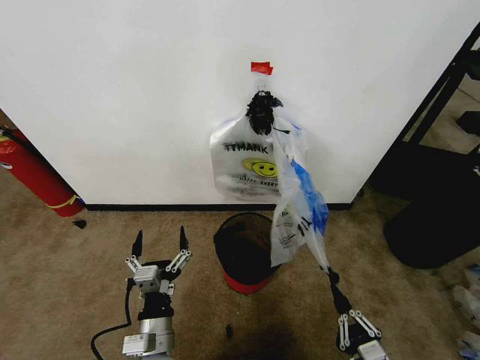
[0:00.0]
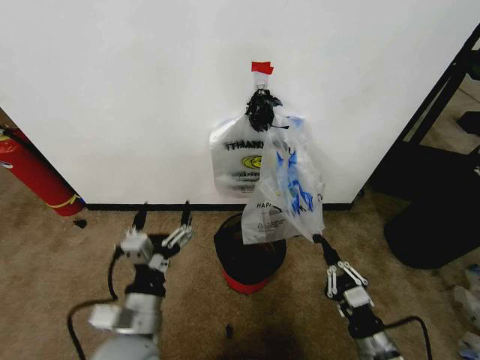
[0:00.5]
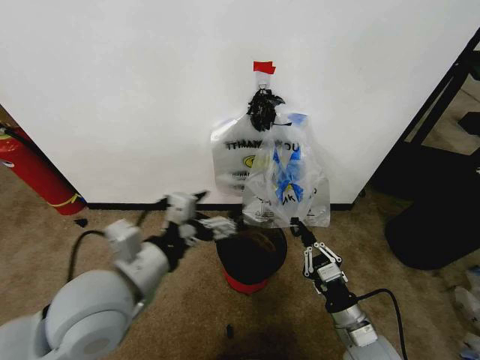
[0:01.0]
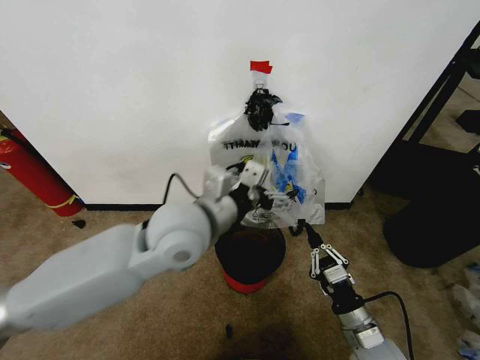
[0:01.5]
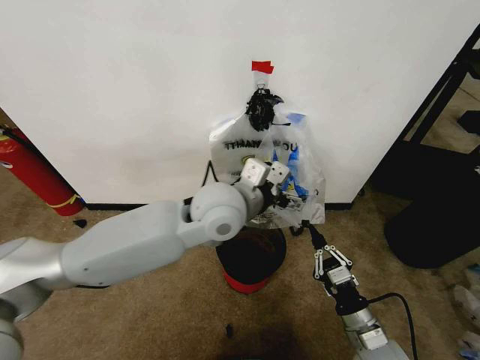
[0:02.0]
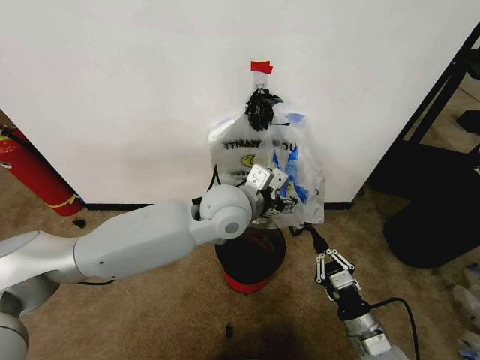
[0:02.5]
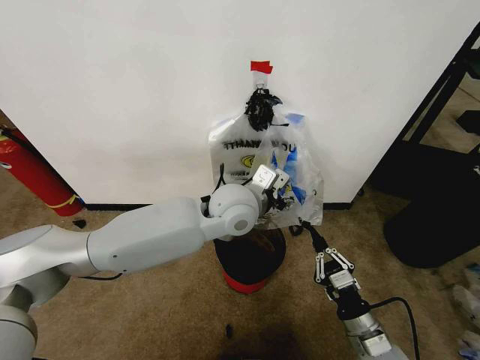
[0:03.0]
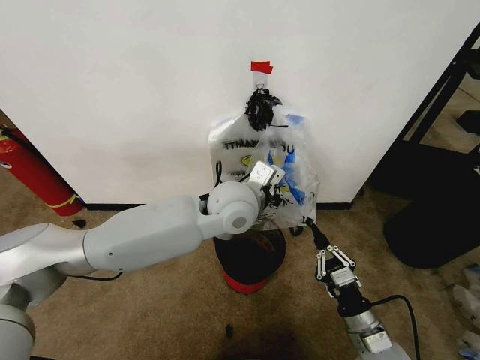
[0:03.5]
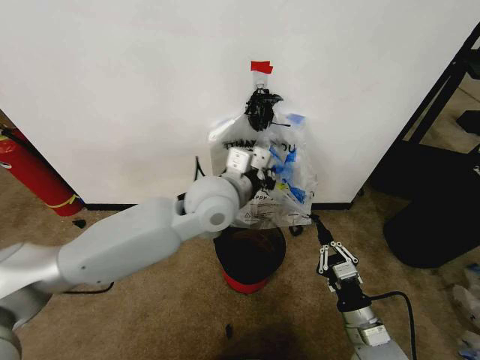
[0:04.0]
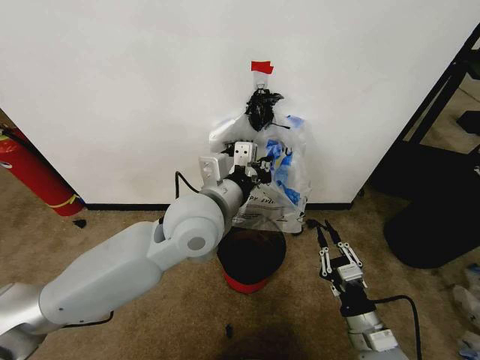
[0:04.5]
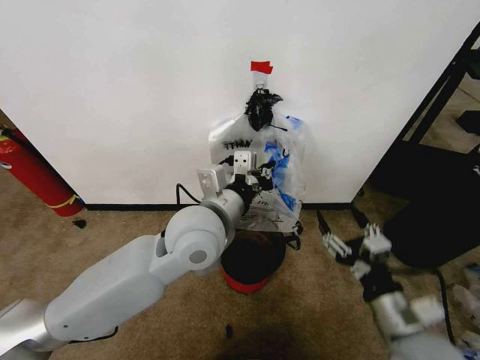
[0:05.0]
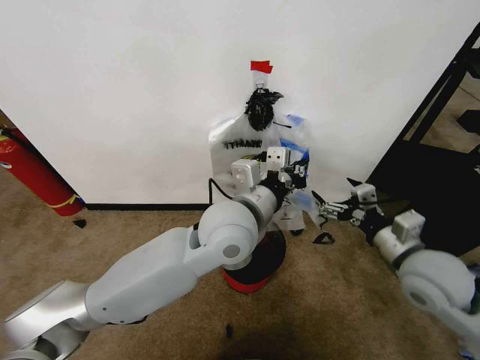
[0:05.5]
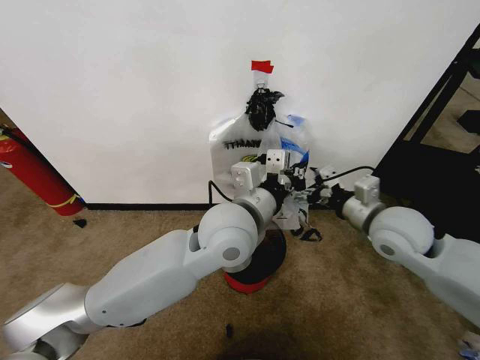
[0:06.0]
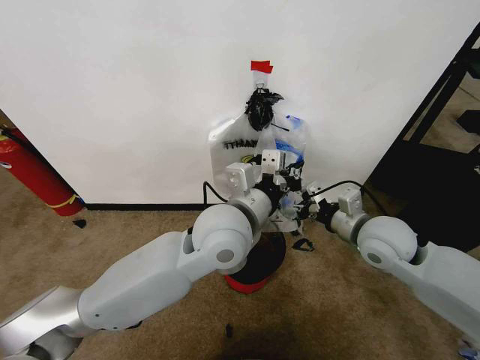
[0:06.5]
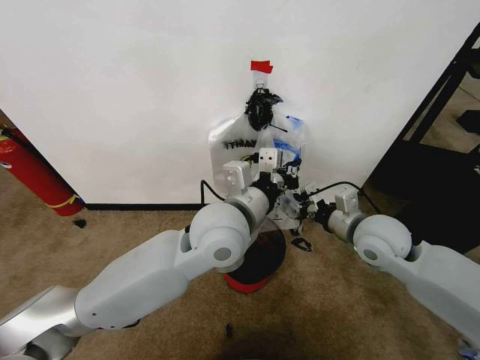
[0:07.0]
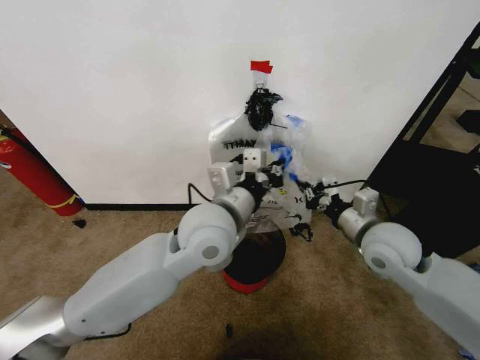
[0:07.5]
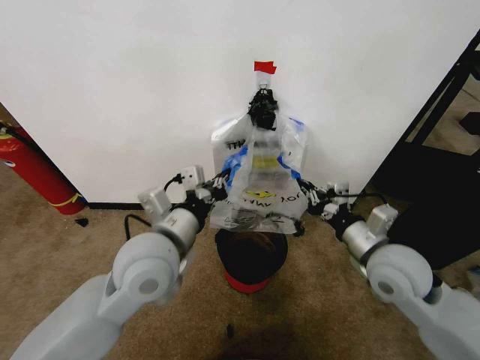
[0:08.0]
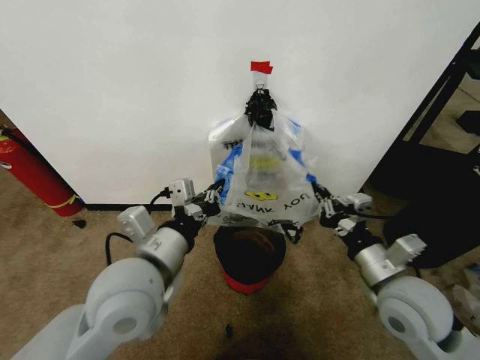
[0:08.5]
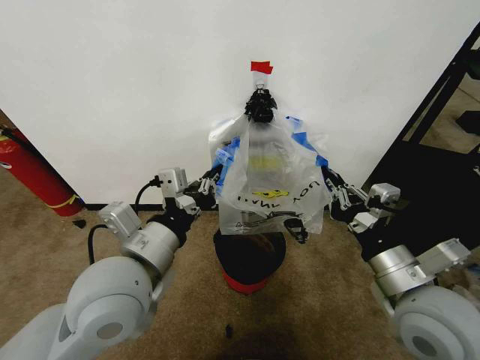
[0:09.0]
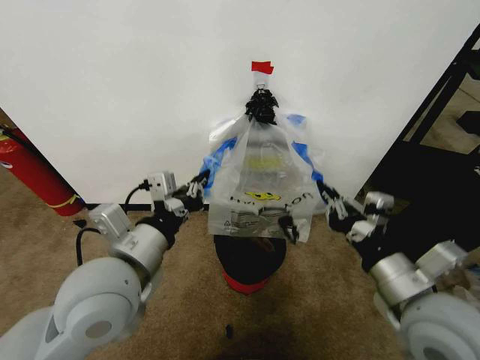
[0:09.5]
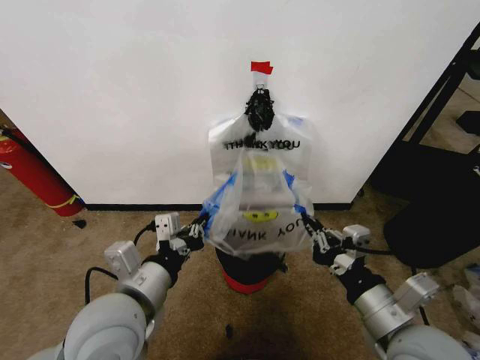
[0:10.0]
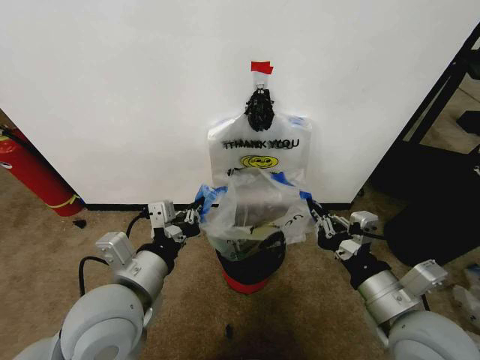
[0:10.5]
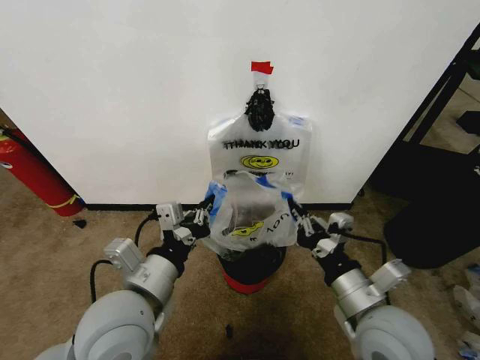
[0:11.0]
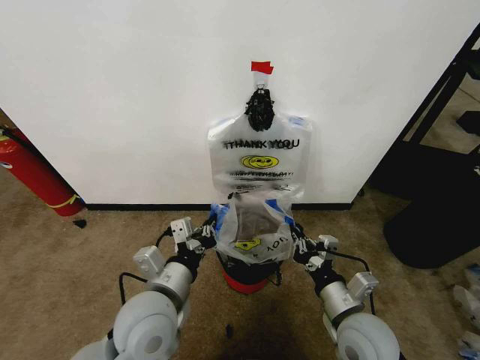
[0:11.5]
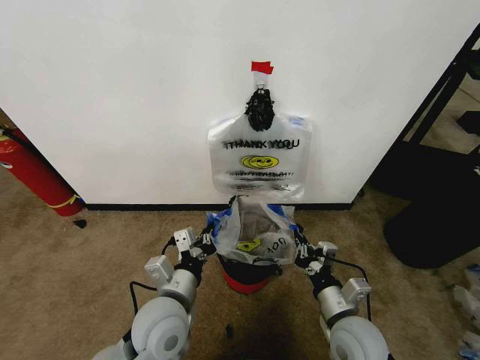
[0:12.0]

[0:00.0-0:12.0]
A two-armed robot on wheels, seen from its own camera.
Task of the whole recording: Pick up the garbage bag from the wall and place it over the trash bin.
0:00.0 to 0:02.0: The left gripper moves upward, forward and to the right, roughly 35 cm; the right gripper heads forward, covering some 15 cm.
0:02.0 to 0:04.0: The left gripper closes its fingers.
0:04.0 to 0:06.0: The left gripper moves backward, roughly 5 cm; the right gripper is displaced upward and forward by roughly 25 cm, and opens up.
0:06.0 to 0:08.0: The left gripper shifts some 10 cm to the left. The right gripper goes approximately 5 cm backward, and closes up.
0:08.0 to 0:10.0: The left gripper moves backward, some 10 cm. Meanwhile the right gripper shifts about 15 cm backward.
0:10.0 to 0:12.0: Both grippers move downward, about 10 cm.

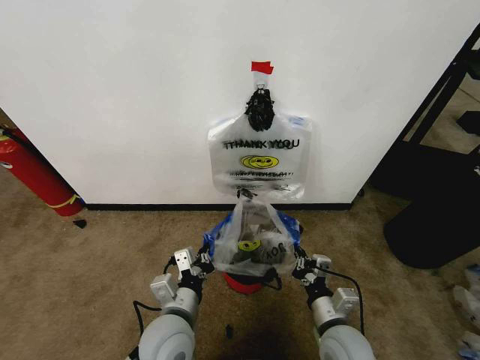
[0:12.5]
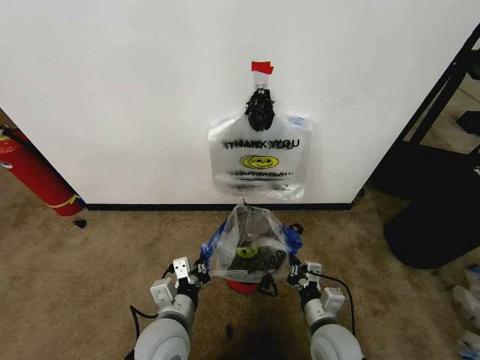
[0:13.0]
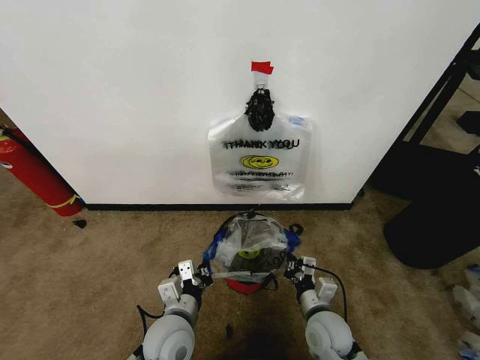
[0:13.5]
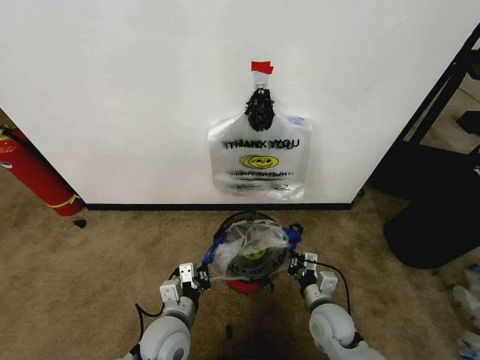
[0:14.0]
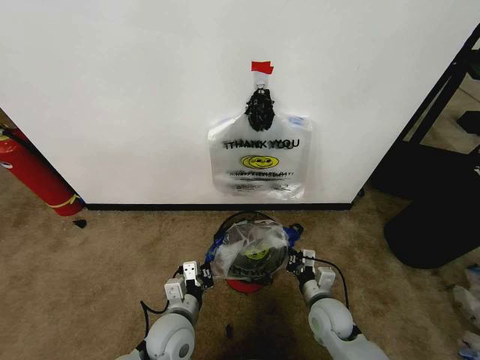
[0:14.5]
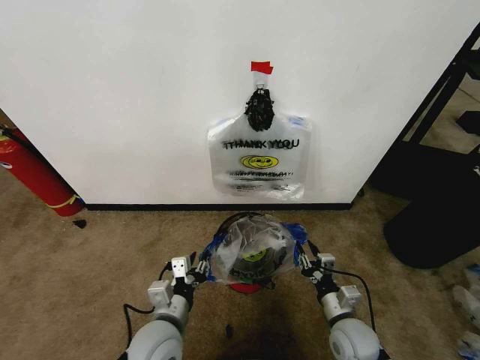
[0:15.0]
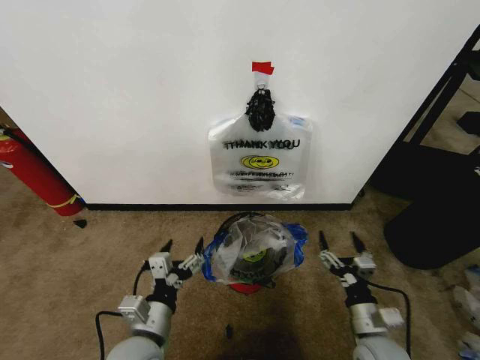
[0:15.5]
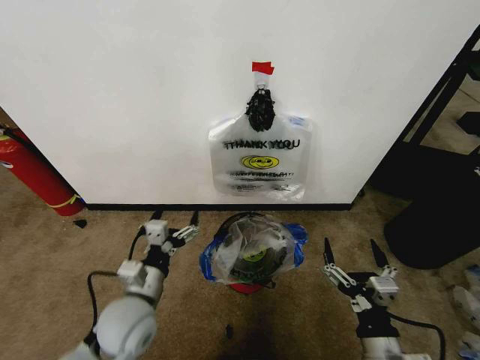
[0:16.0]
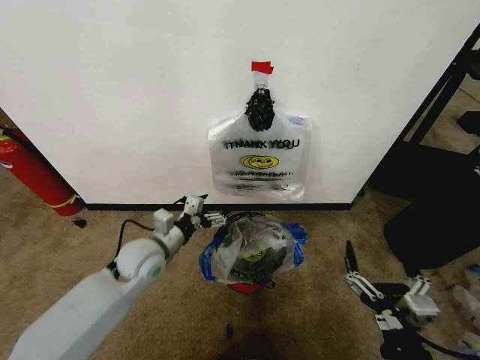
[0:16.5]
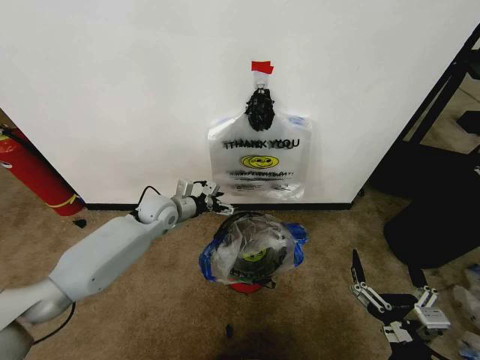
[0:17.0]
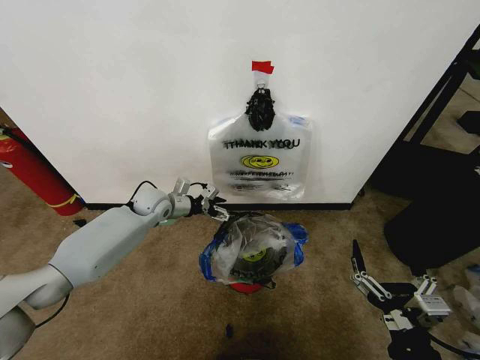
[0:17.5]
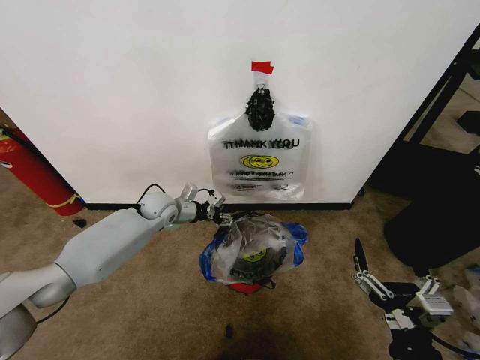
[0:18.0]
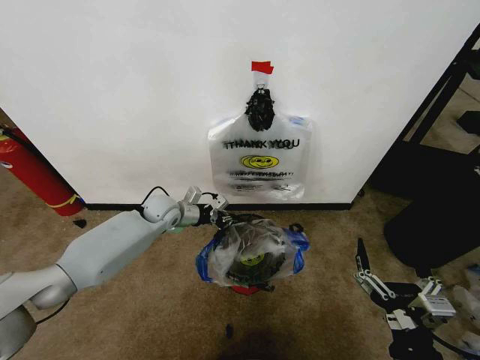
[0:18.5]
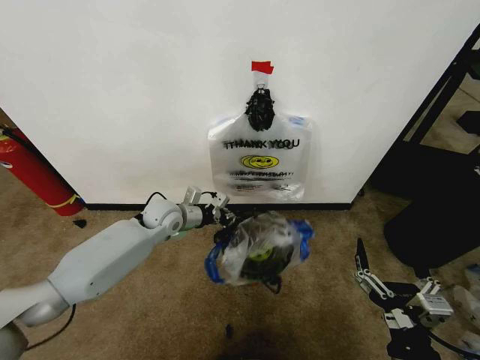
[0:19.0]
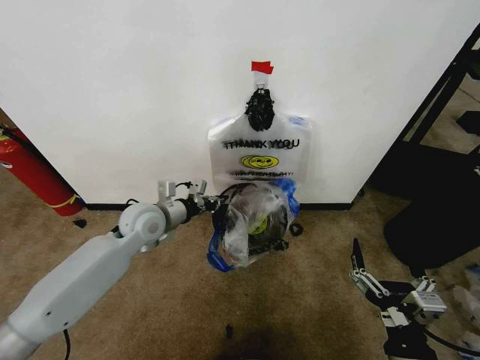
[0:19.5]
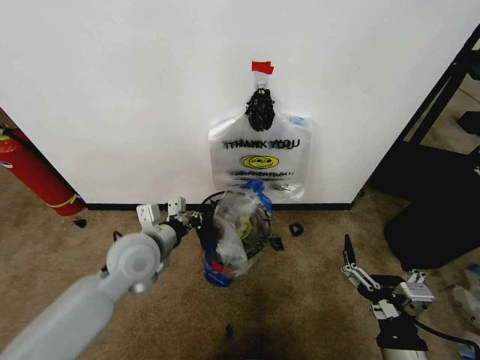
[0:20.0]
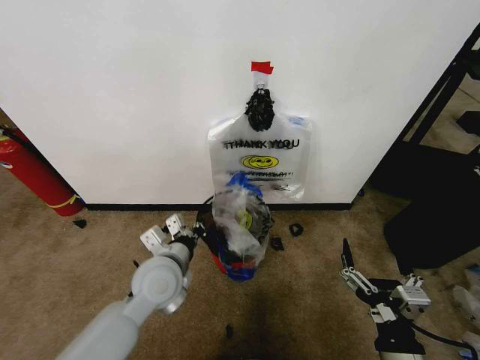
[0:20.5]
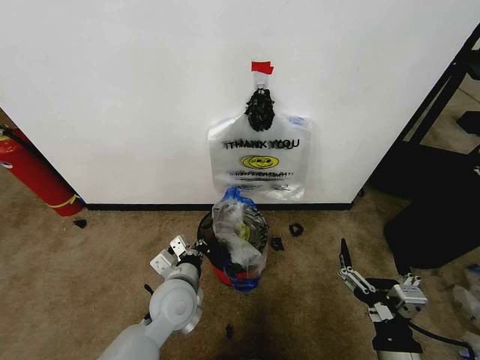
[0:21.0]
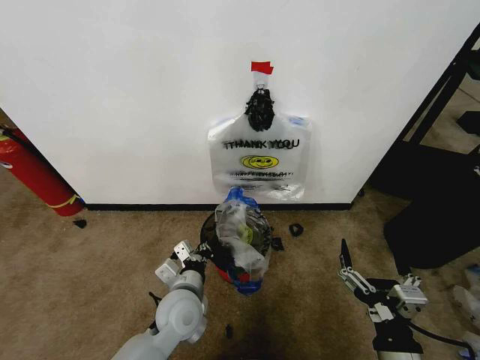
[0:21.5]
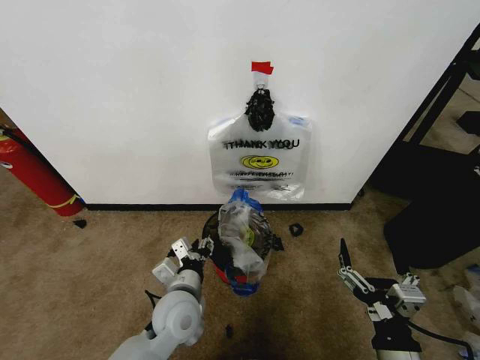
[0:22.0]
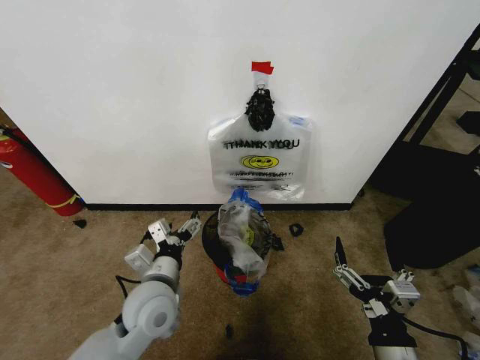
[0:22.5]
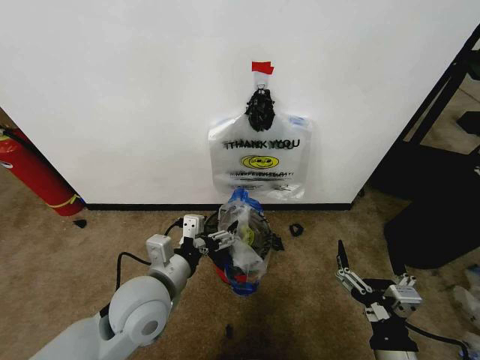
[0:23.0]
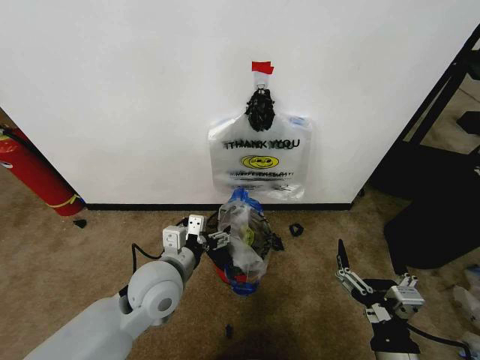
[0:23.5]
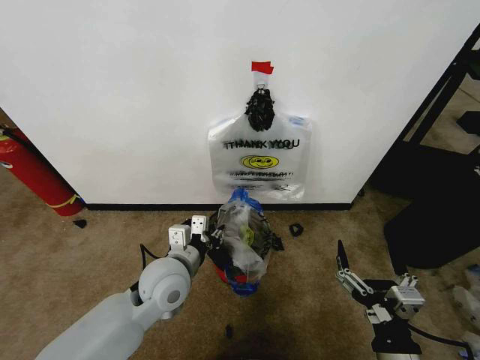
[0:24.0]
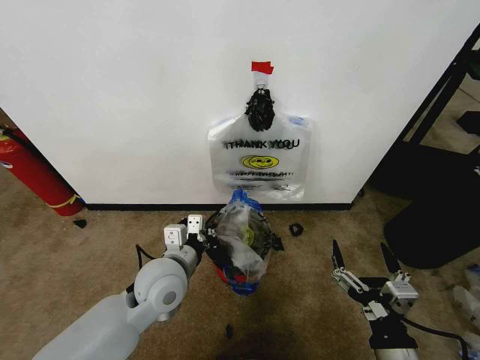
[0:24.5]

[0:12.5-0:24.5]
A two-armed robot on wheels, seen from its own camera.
Task of the whole recording: Pick up the garbage bag from the wall and place it over the trash bin.
0:12.5 to 0:14.5: The left gripper moves downward, some 5 cm. Meanwhile the right gripper travels forward and downward by some 10 cm.
0:14.5 to 0:16.5: The right gripper travels backward and upward by about 25 cm, and opens up. Meanwhile the left gripper goes about 20 cm forward, upward and to the left, and opens its fingers.
0:16.5 to 0:18.5: The left gripper travels forward by roughly 15 cm, and closes its fingers.
0:18.5 to 0:20.5: The left gripper moves backward, about 20 cm.
0:20.5 to 0:22.5: The left gripper reaches about 10 cm downward, then returns, and opens.
0:22.5 to 0:24.5: The left gripper closes up.

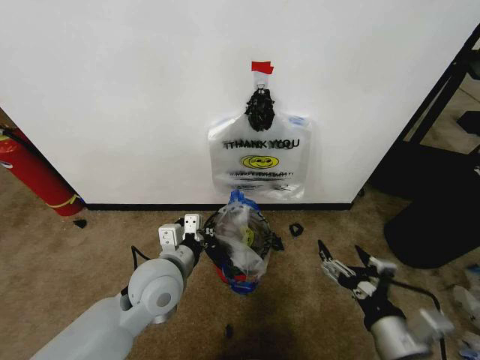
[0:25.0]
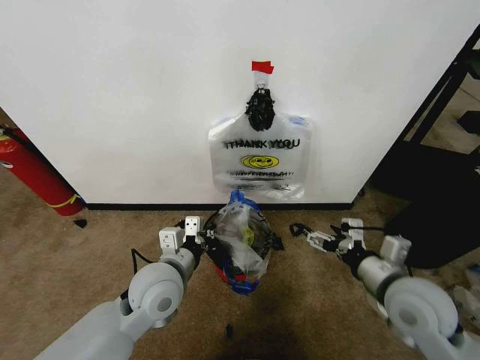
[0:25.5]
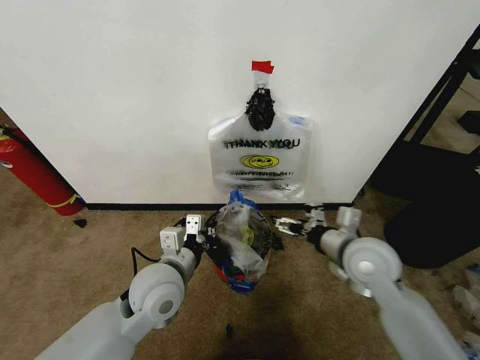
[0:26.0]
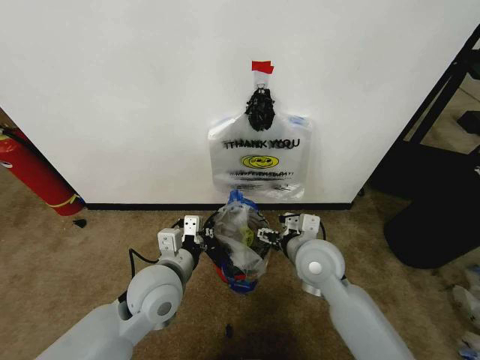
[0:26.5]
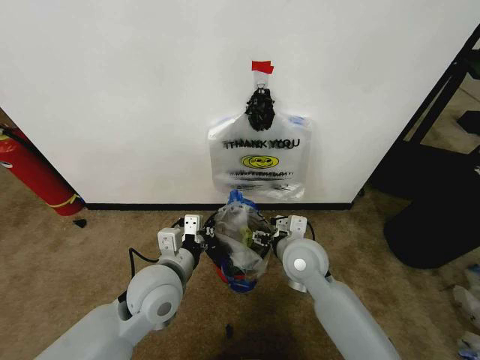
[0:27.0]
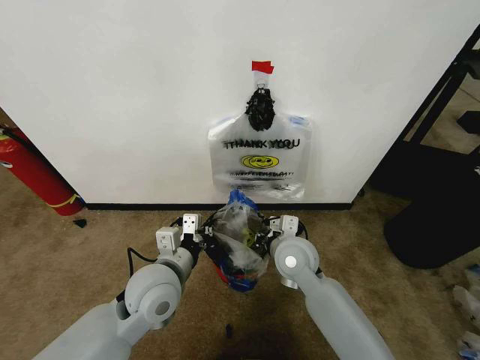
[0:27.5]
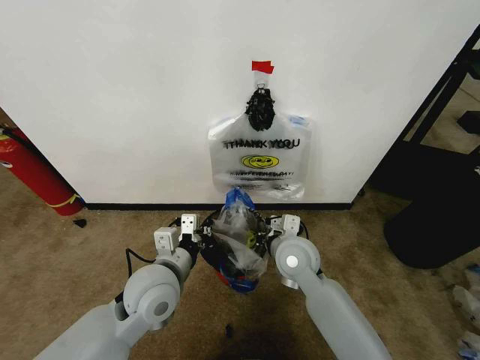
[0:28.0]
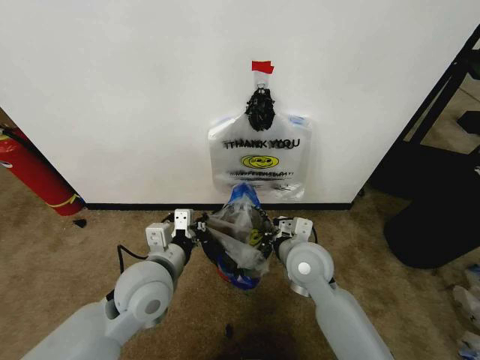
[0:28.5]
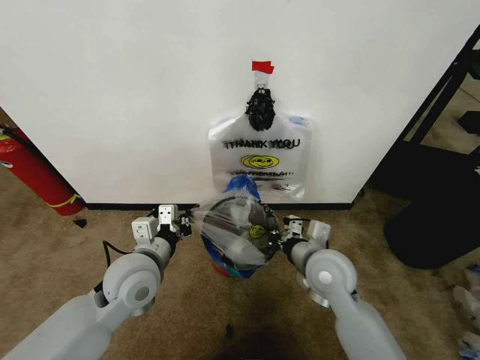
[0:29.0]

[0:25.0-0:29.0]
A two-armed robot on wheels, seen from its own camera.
Task of the whole recording: Pick up the garbage bag from the wall and place it over the trash bin.
0:25.0 to 0:27.0: The right gripper shifts roughly 25 cm forward and to the left.
0:27.0 to 0:29.0: The right gripper shifts by about 5 cm, and closes.
